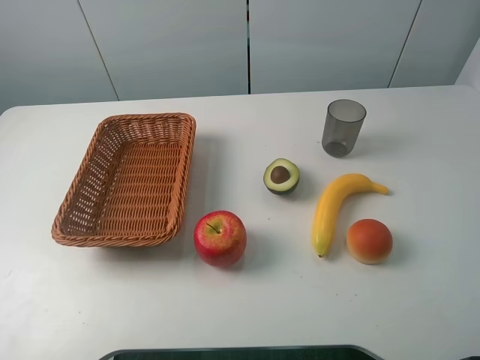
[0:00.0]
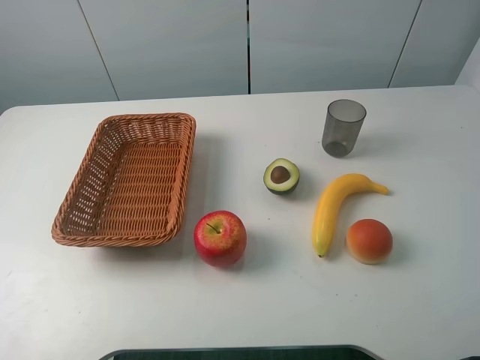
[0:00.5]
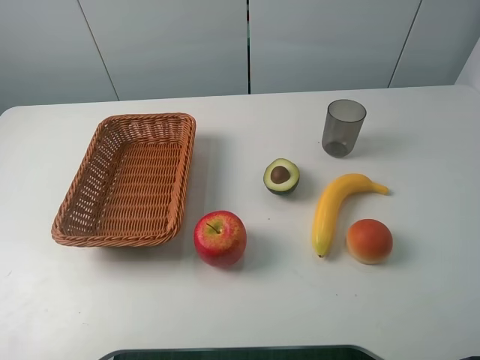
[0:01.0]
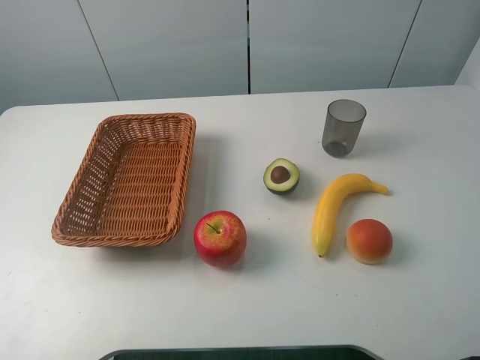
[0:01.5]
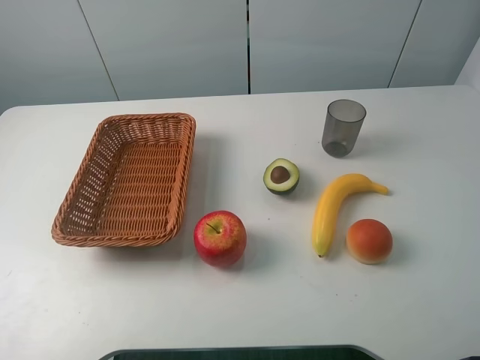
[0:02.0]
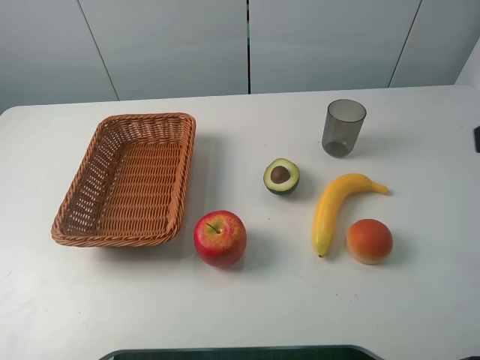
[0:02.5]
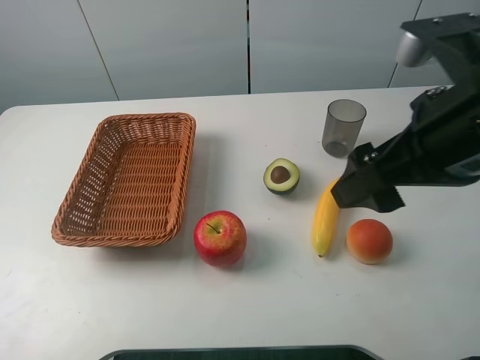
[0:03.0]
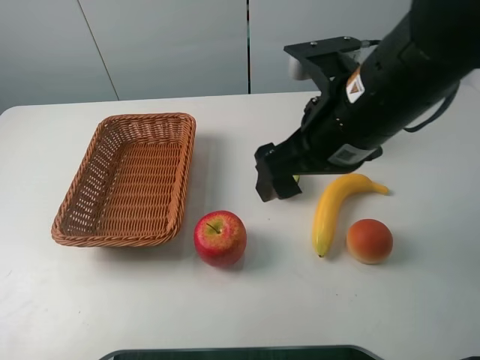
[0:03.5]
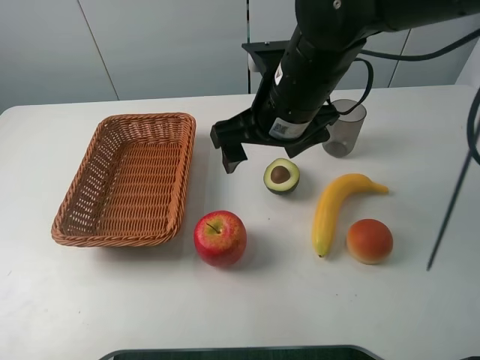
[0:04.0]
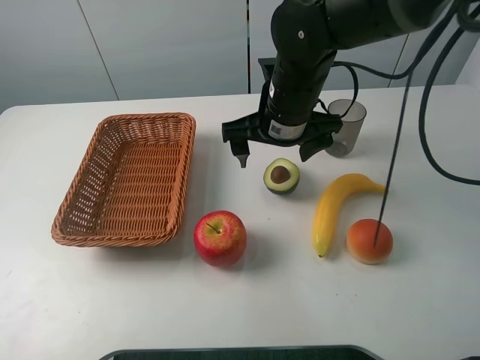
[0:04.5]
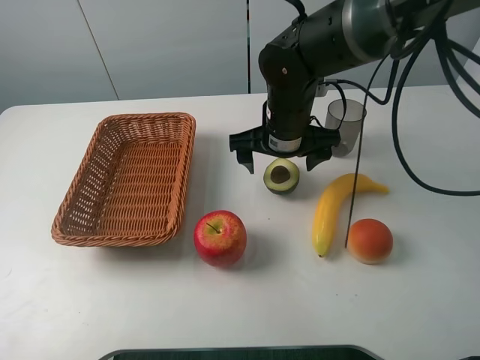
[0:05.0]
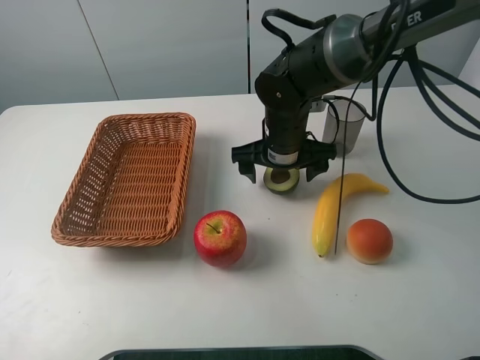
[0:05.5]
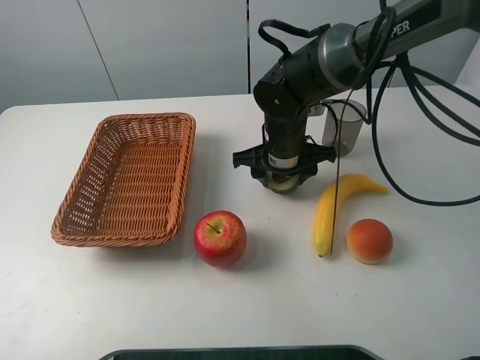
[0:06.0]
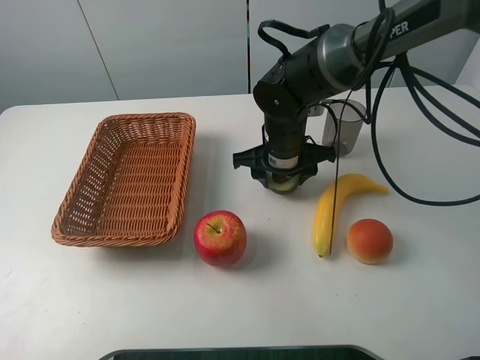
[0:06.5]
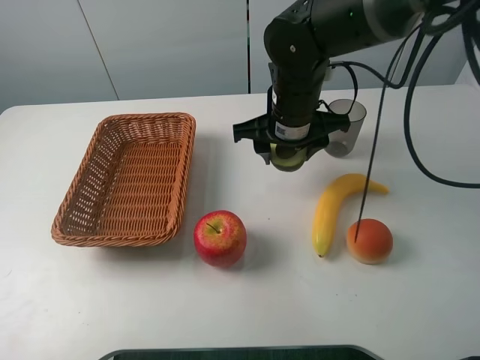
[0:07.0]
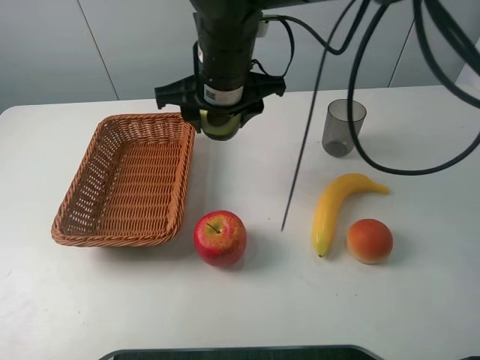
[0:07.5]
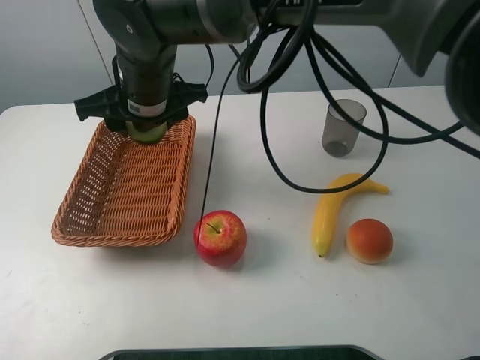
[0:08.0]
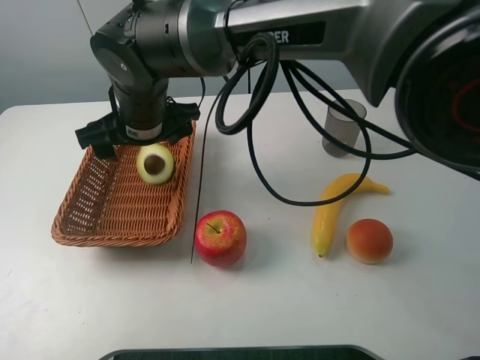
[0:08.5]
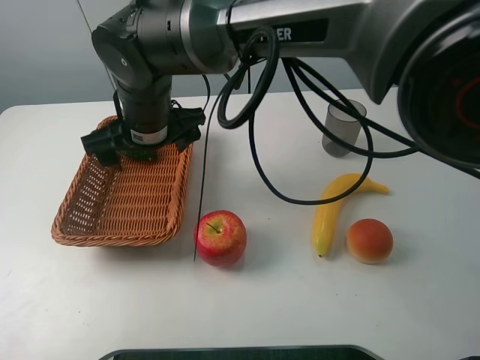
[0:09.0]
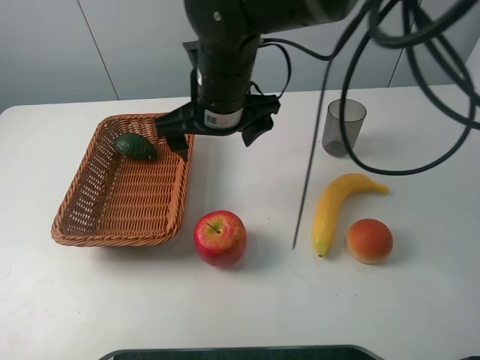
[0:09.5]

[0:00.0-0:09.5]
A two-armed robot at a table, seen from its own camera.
Task of the whole recording: randomly pick up an item from the table and put it in the basket.
Step, 0:00.0 to 0:06.0: Grasp the avocado with the right gripper.
Step, 0:06.5 to 0:09.0: Place the avocado into the basket with the right gripper.
0:00.0 to 0:02.0: Neither gripper changes place.
0:02.0 to 0:04.0: The right gripper moves forward and to the left, roughly 35 cm.
0:04.0 to 0:05.5: The right gripper shifts some 10 cm downward and forward.
0:05.5 to 0:07.5: The right gripper travels upward and to the left by about 15 cm, and closes.
0:07.5 to 0:09.5: The right gripper moves roughly 10 cm to the left and comes back, and opens its fingers.

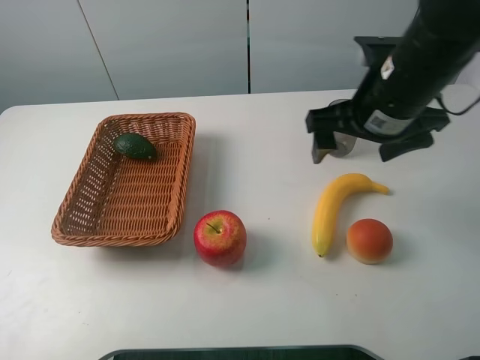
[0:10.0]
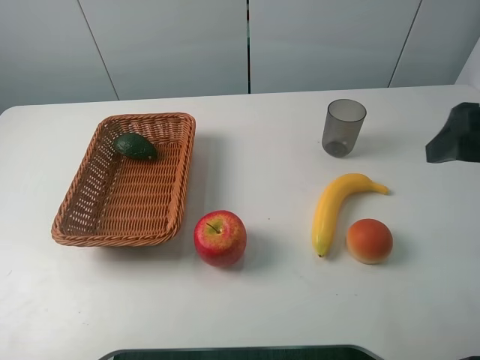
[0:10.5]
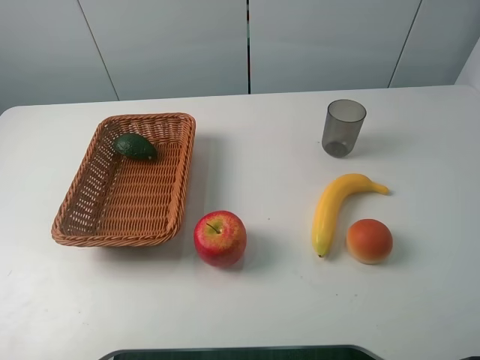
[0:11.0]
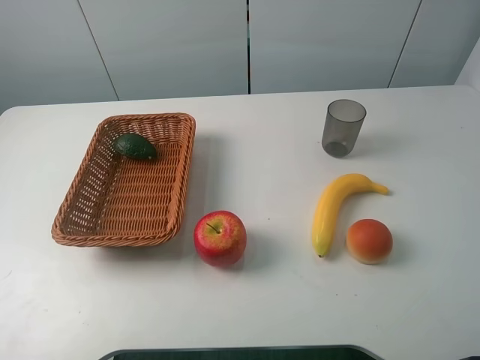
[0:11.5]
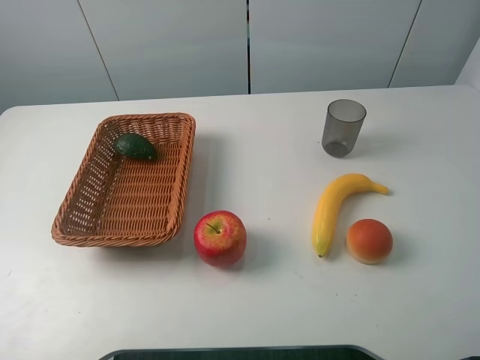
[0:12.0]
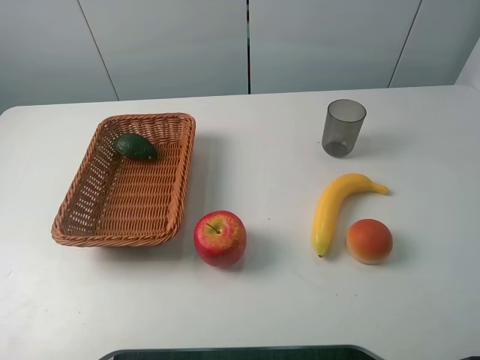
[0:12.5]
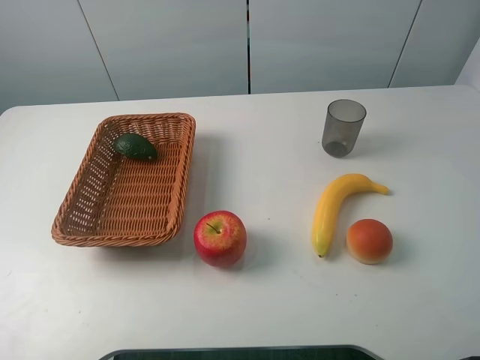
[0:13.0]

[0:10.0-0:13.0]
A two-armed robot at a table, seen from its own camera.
Task of the whole recording: randomly pick up an item from the table and put it in the basket.
0:10.0 to 0:11.5: The right gripper heads backward and to the right, covering some 30 cm.

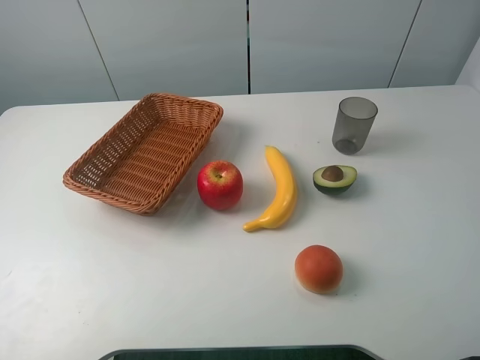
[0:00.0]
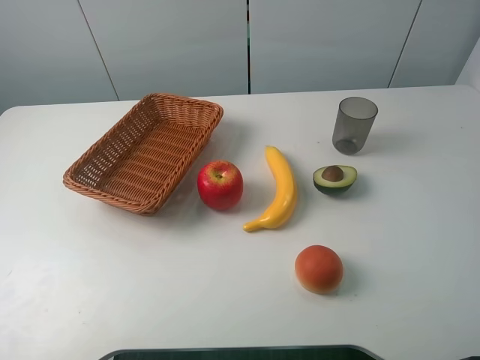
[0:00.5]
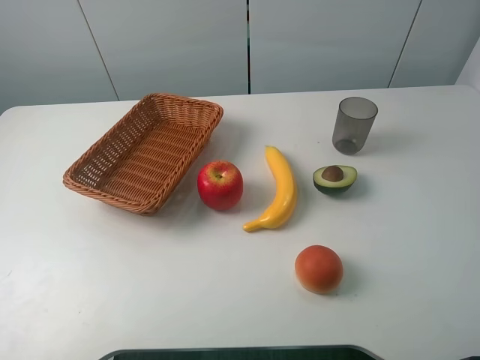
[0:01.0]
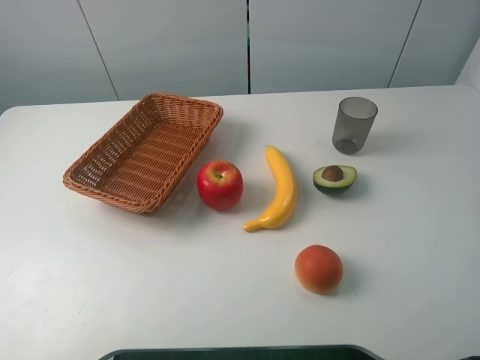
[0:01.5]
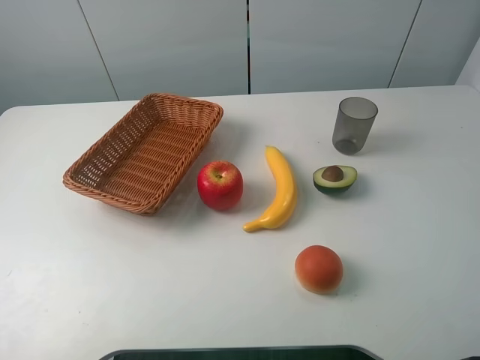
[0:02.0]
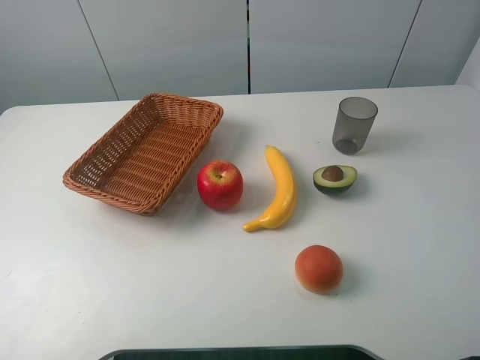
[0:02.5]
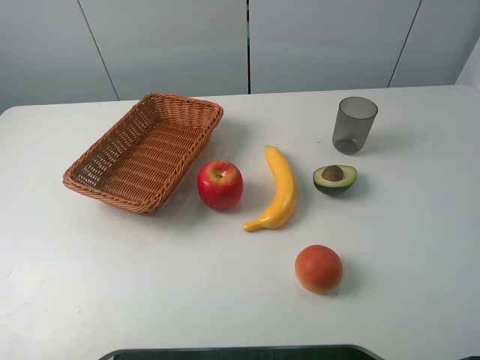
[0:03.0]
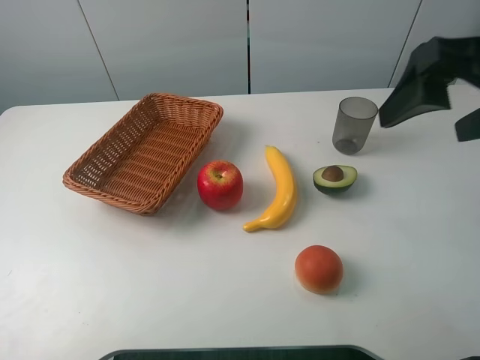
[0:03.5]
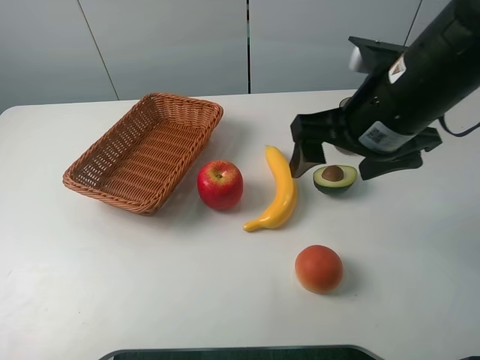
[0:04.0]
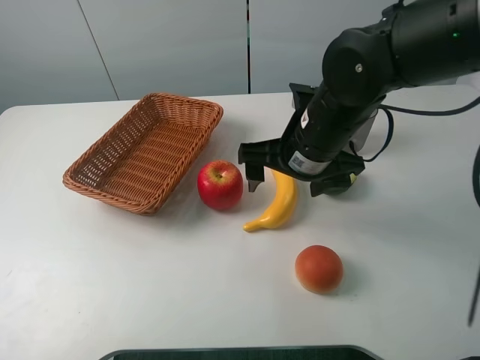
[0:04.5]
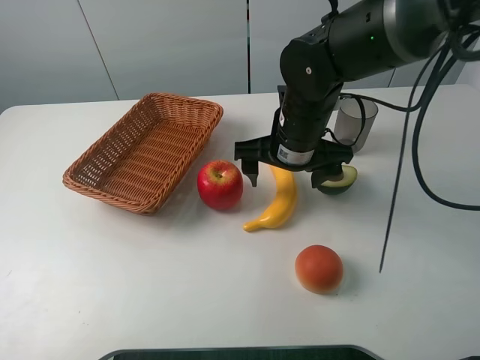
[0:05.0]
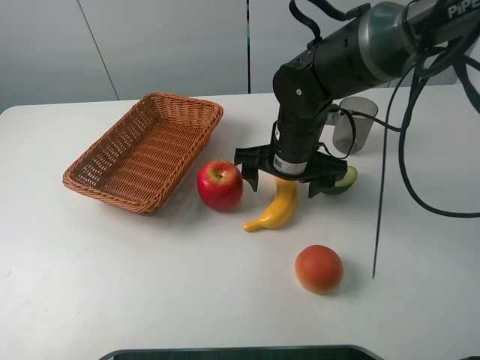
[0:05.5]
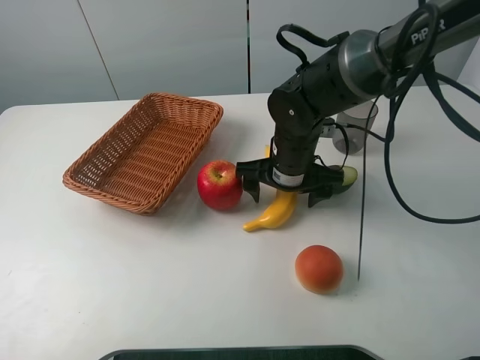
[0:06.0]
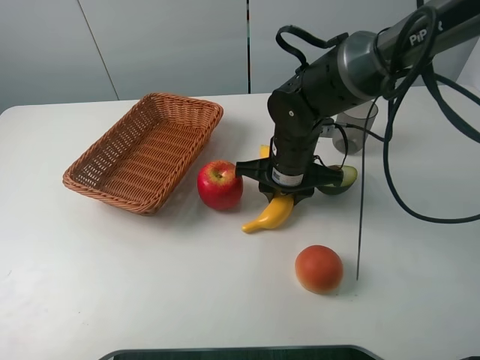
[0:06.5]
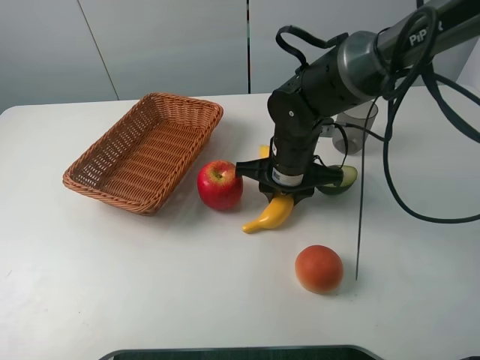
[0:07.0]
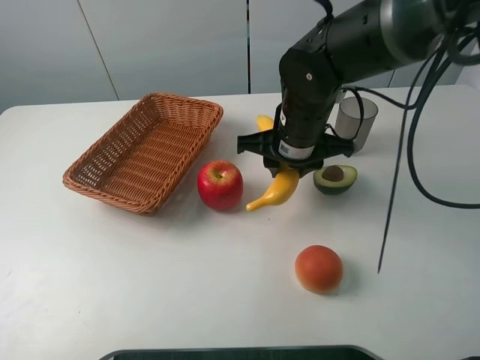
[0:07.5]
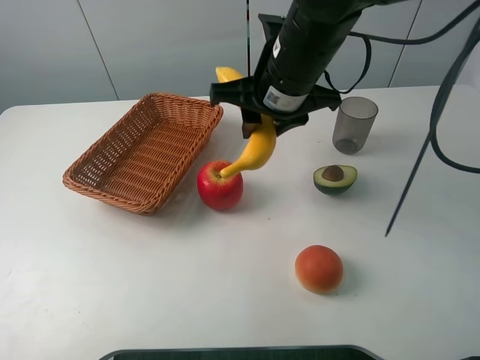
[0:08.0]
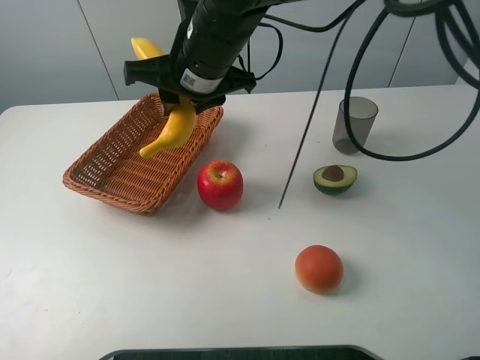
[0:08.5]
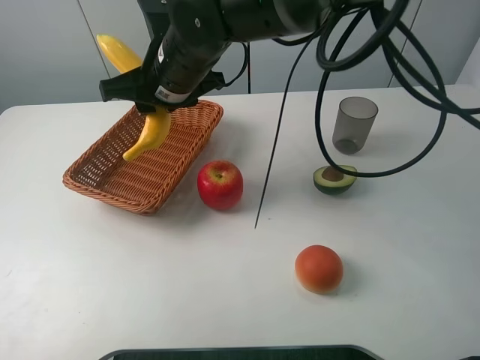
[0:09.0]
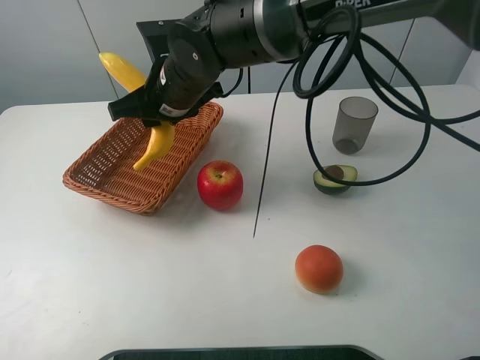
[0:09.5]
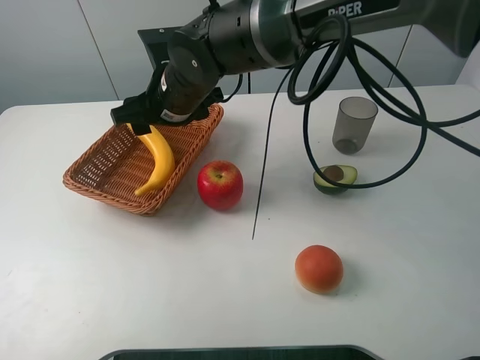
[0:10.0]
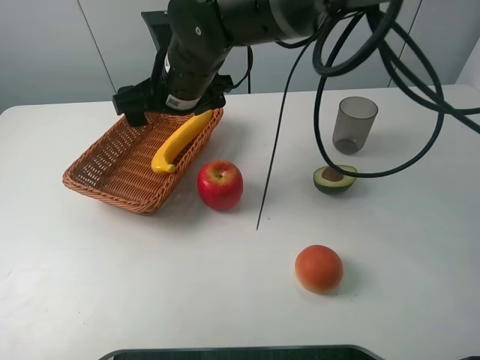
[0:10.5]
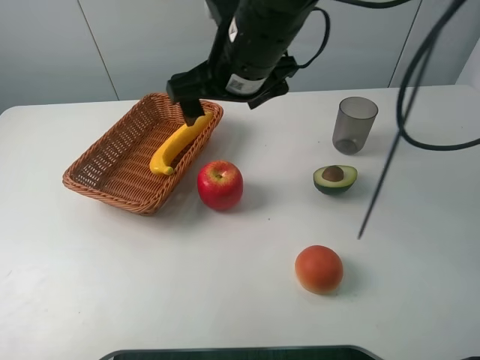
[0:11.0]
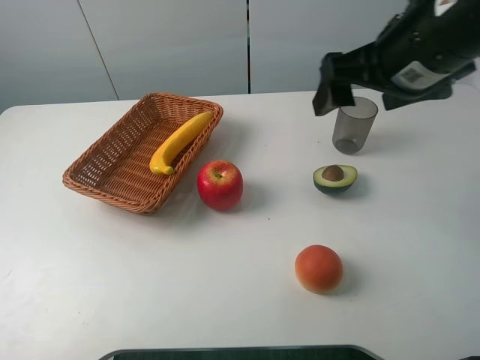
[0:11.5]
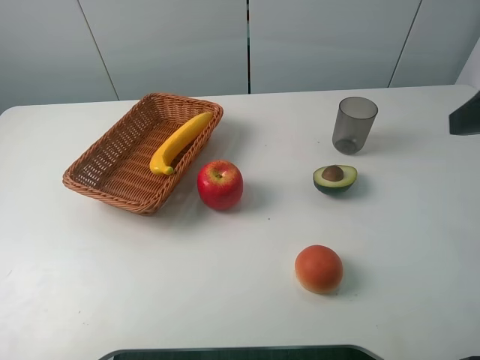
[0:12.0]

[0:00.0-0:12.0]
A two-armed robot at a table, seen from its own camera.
Task of the whole recording: randomly pick up an item from the table and put it in the basket.
Step, 0:00.0 to 0:06.5: Grasp the banana with the right gripper.
Step, 0:07.0 to 0:10.5: Place the banana into the basket with the right gripper.
0:02.0 to 0:04.0: The right gripper moves forward, downward and to the left, roughly 30 cm.
0:04.0 to 0:06.0: The right gripper shifts roughly 15 cm downward, forward and to the left.
0:06.0 to 0:08.0: The right gripper moves upward, roughly 15 cm, and closes its fingers.
0:08.0 to 0:10.0: The right gripper shifts approximately 15 cm to the left and downward, and opens its fingers.
0:10.0 to 0:12.0: The right gripper is displaced to the right and backward by about 40 cm.

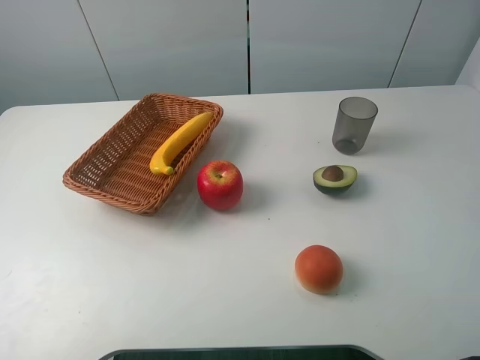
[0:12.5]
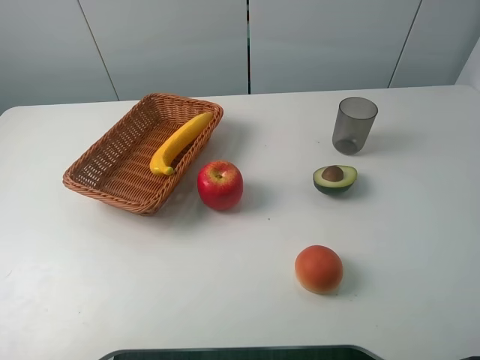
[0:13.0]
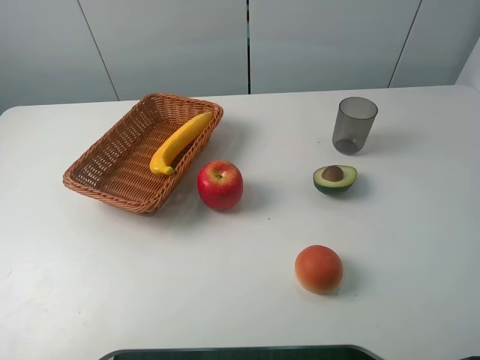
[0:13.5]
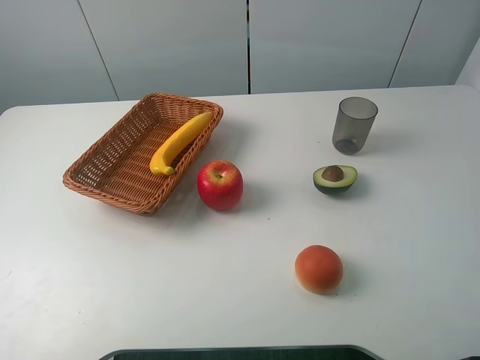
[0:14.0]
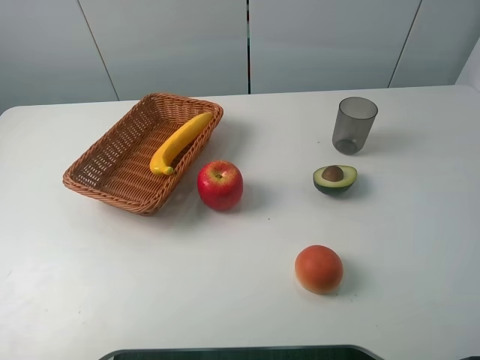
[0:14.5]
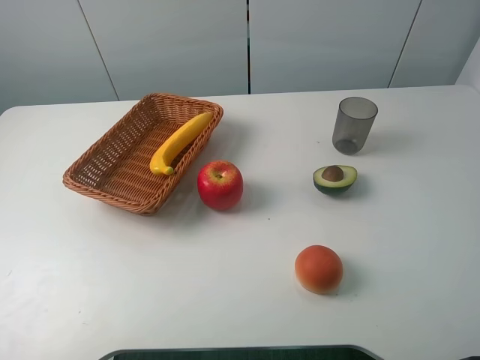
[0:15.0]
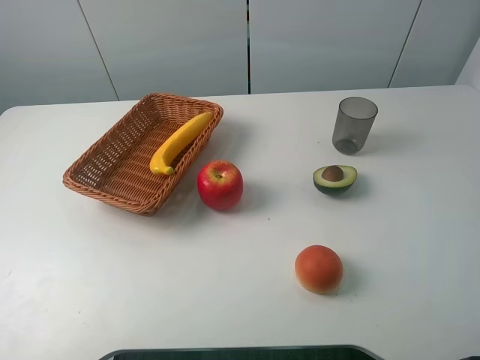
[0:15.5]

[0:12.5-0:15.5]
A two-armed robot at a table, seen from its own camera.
Task of the whole recording: randomly pick up an item from the table and put it in the basket.
0:14.0 to 0:15.5: Neither gripper changes place.
